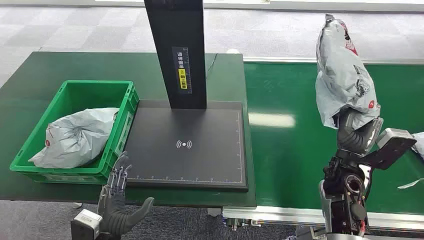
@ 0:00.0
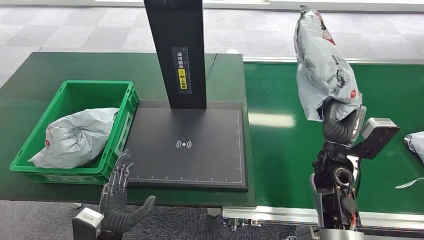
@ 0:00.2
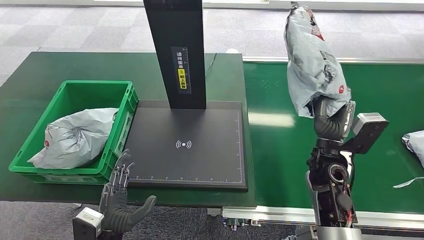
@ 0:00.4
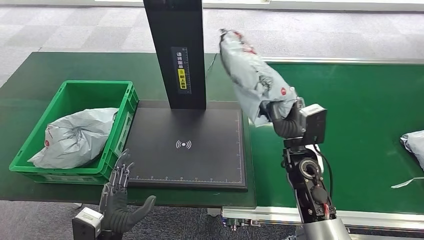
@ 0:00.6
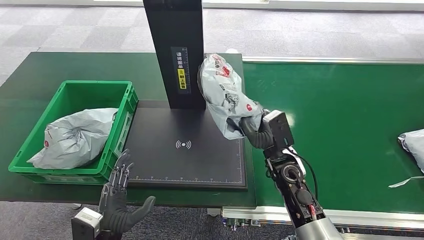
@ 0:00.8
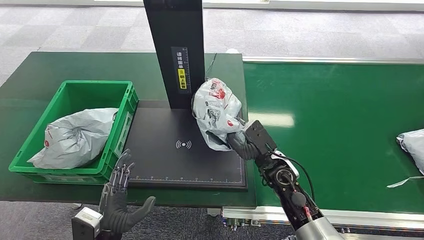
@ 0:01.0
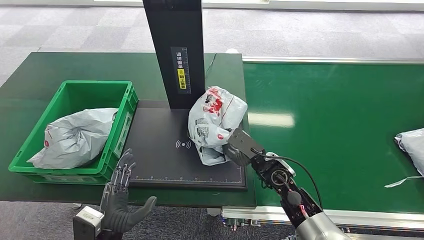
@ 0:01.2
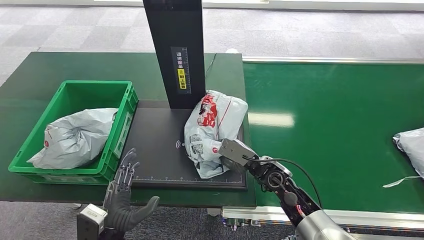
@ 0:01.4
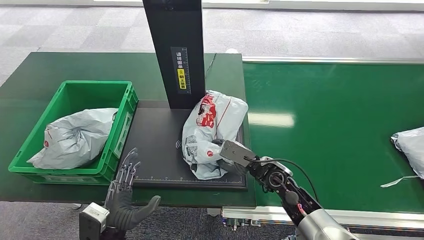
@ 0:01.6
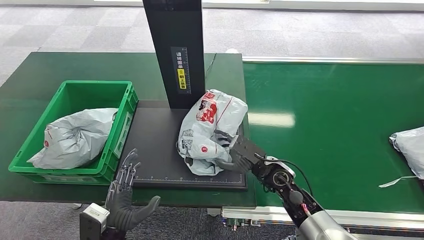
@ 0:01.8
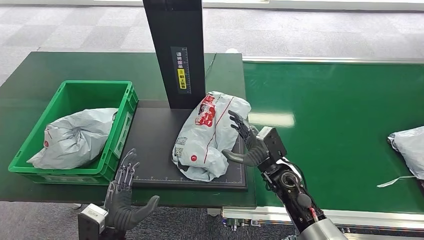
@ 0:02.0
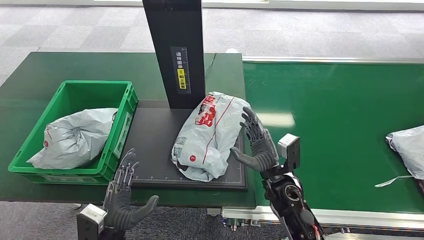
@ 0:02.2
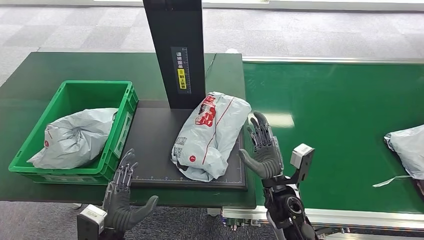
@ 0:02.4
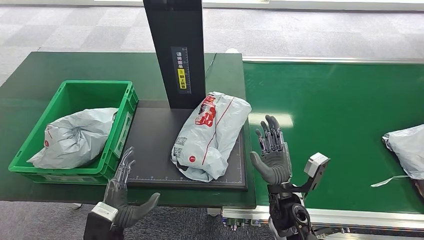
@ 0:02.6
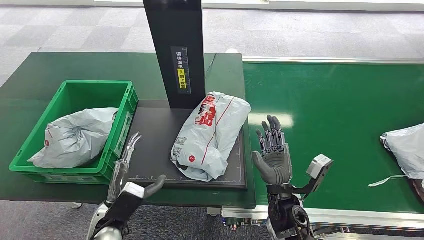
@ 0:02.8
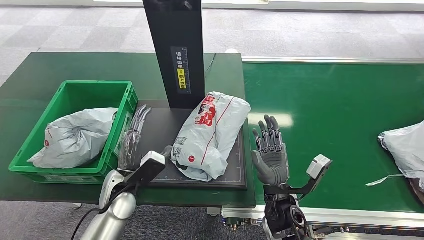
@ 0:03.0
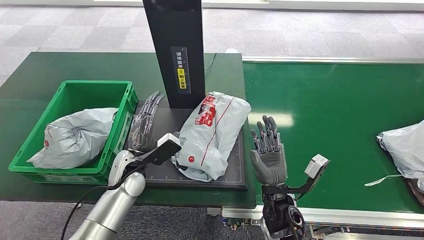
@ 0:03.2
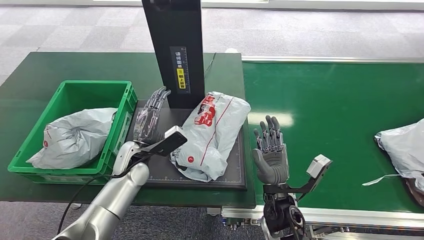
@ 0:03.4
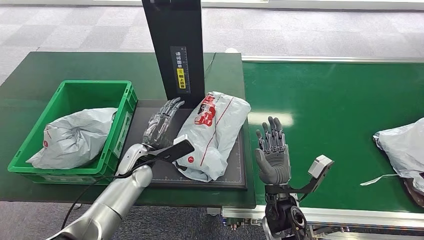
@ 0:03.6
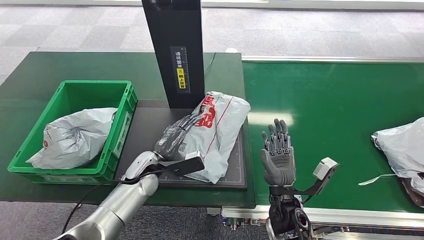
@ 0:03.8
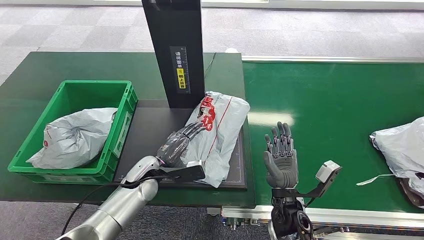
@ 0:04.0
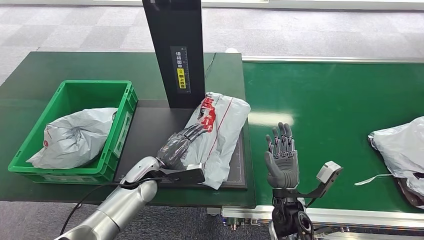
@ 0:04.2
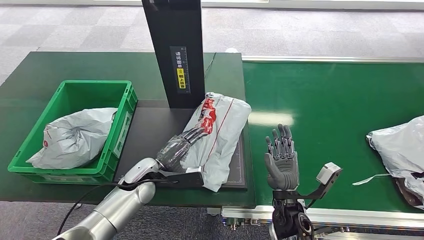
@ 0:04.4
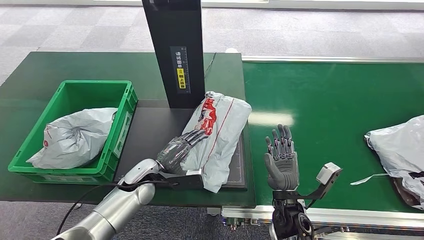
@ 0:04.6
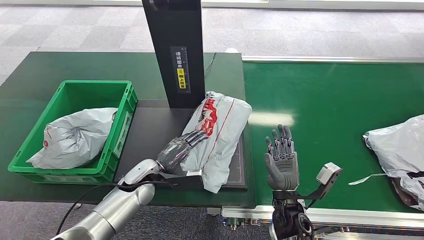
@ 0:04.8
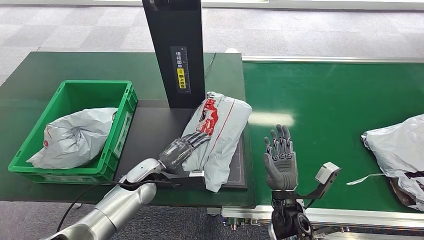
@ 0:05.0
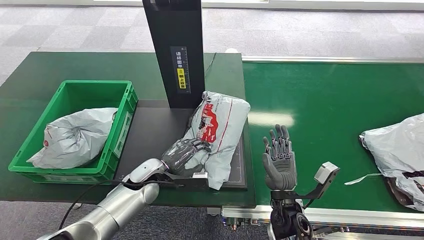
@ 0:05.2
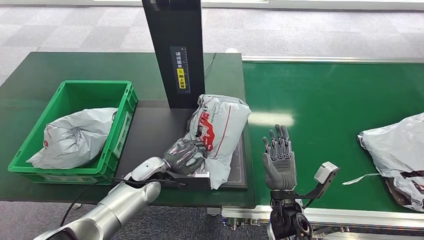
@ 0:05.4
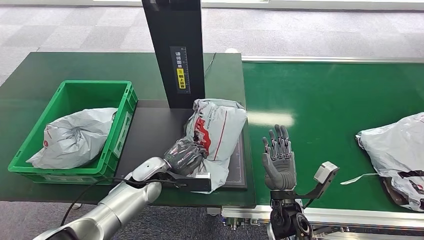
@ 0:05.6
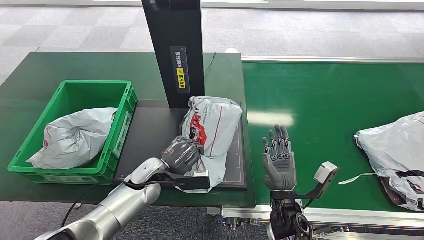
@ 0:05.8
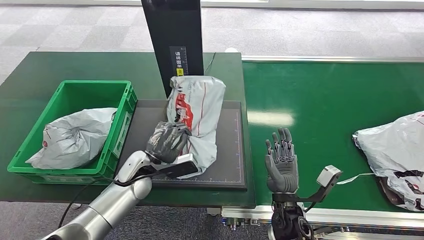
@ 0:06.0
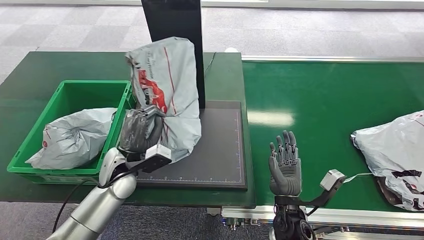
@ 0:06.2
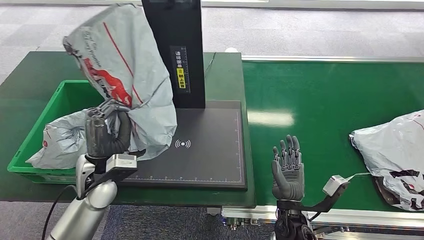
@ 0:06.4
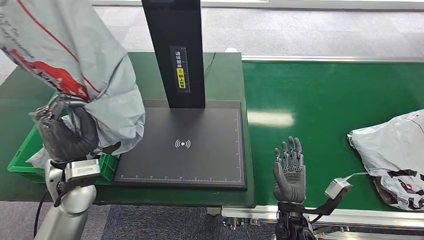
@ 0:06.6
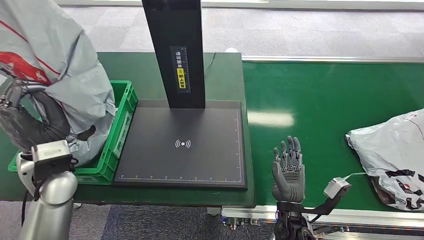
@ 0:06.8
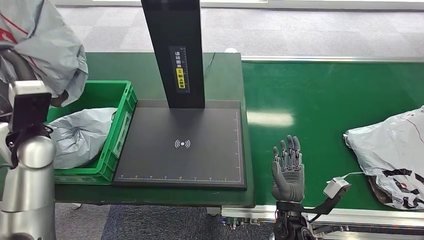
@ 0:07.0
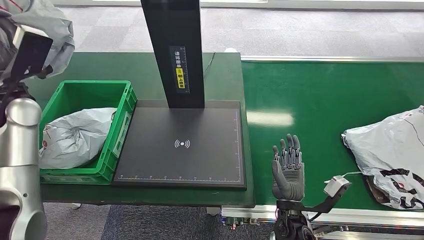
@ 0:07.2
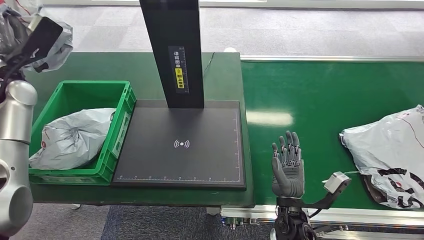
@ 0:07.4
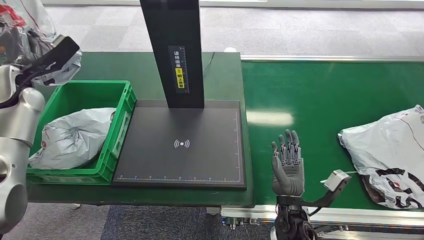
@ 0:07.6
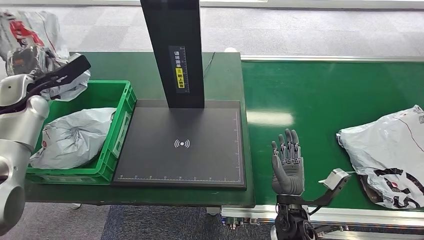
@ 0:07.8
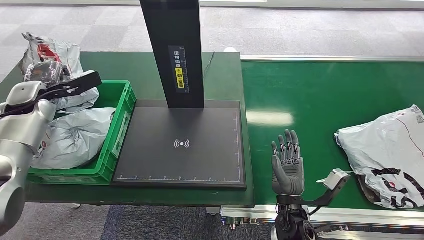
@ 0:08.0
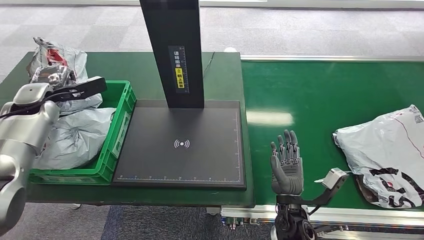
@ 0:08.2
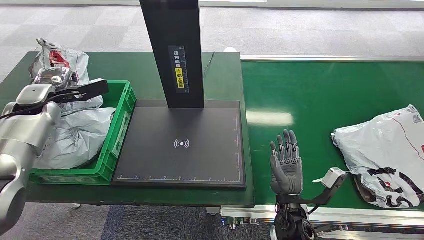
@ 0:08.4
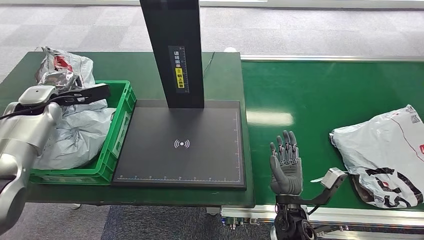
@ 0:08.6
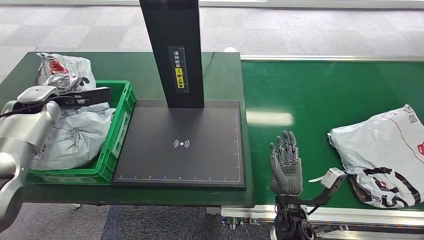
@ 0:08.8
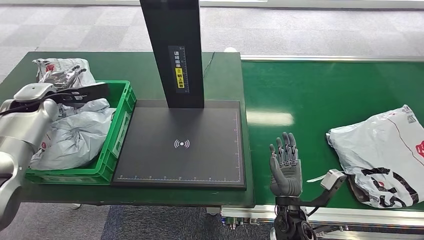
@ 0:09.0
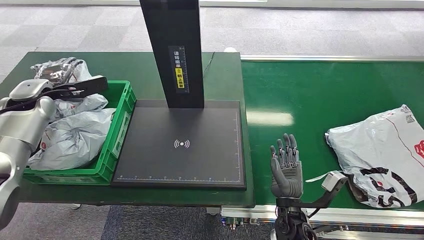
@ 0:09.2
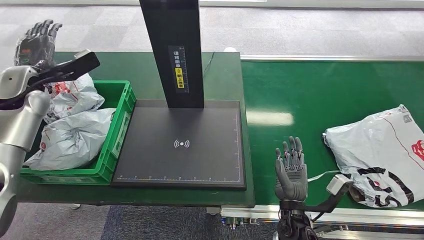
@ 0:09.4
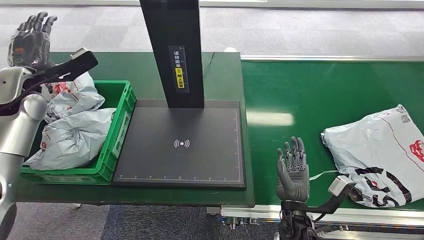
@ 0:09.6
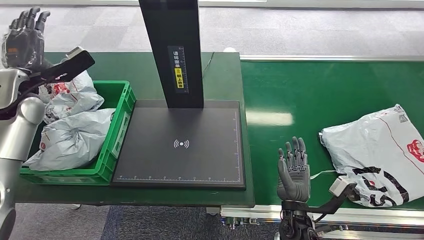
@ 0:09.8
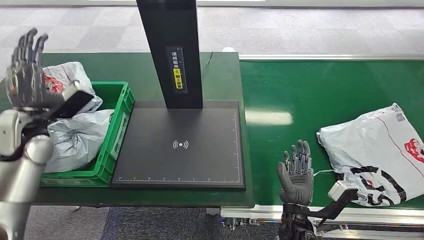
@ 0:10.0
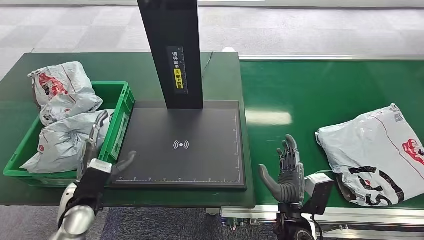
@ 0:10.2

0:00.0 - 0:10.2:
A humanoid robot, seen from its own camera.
0:01.4 - 0:03.0: The right hand heads backward, covering some 10 cm. The left hand moves forward, about 15 cm.
0:03.0 - 0:04.4: The left hand ends up some 5 cm from where it was.
0:04.4 - 0:05.8: The hands stay close to where they were, moving slightly.
